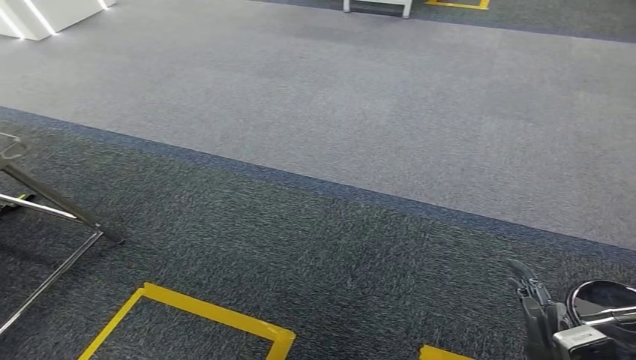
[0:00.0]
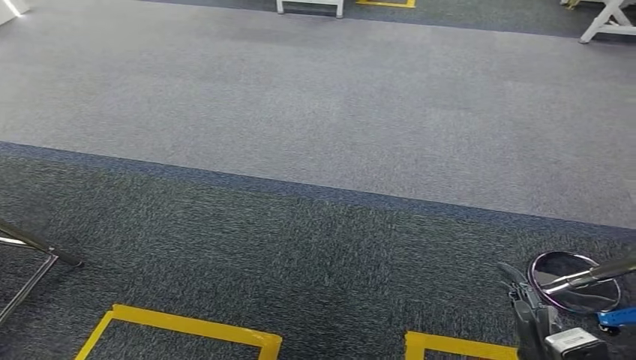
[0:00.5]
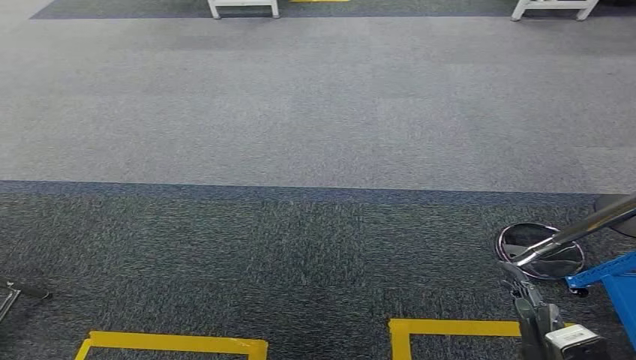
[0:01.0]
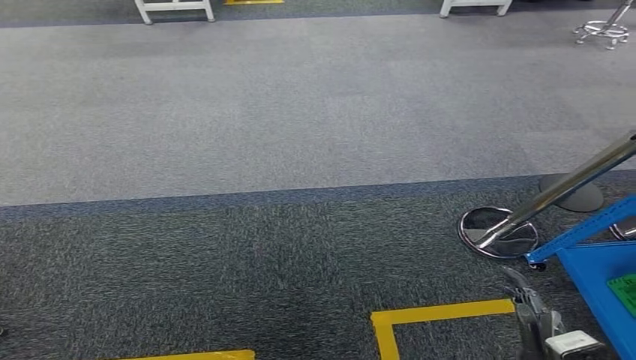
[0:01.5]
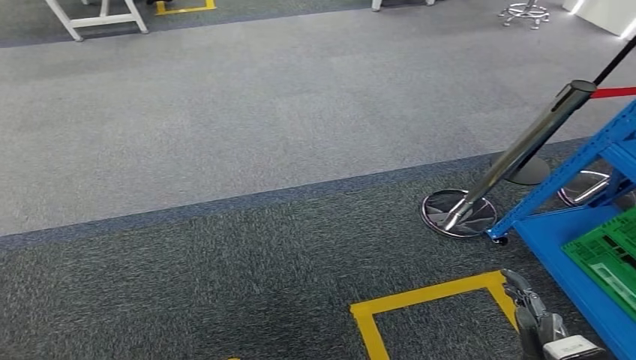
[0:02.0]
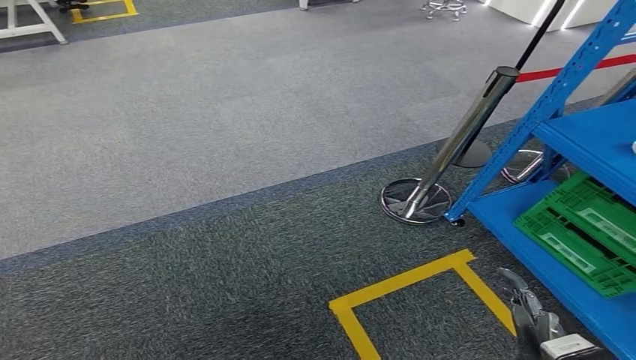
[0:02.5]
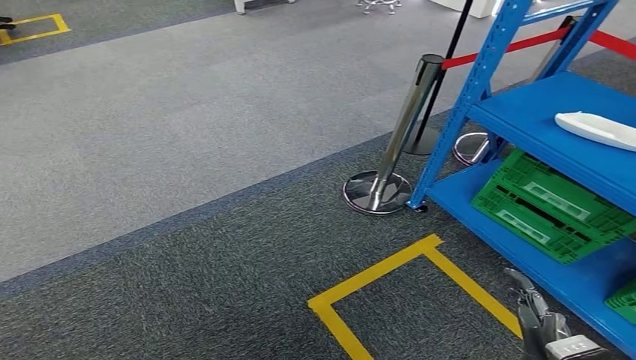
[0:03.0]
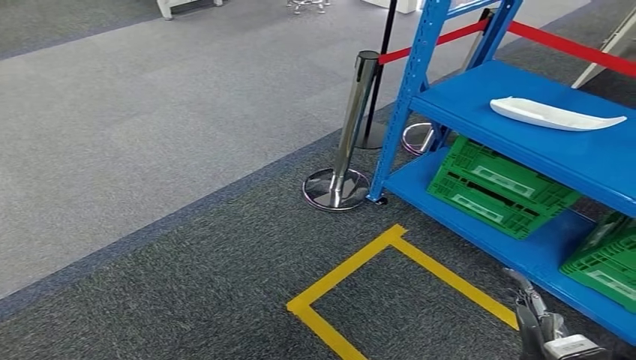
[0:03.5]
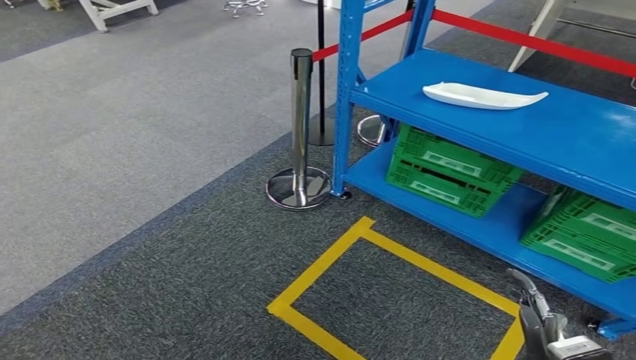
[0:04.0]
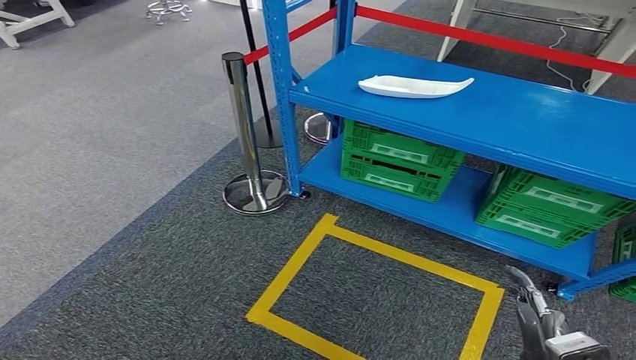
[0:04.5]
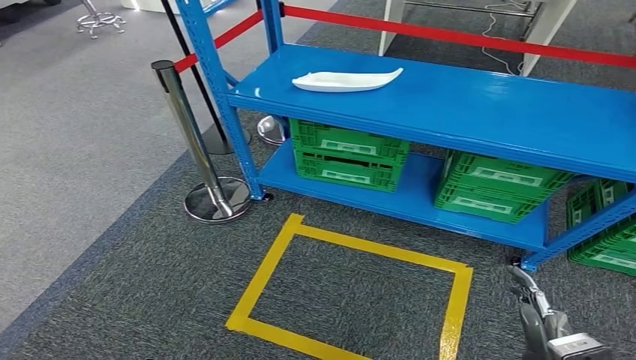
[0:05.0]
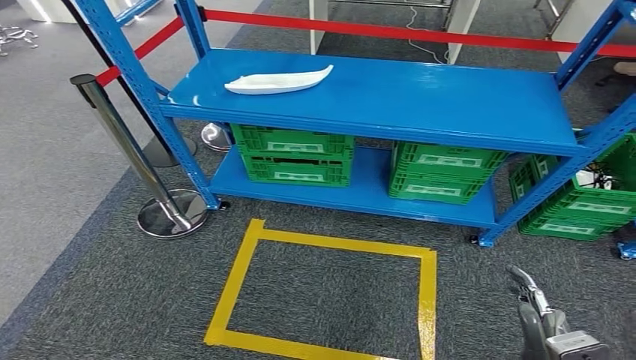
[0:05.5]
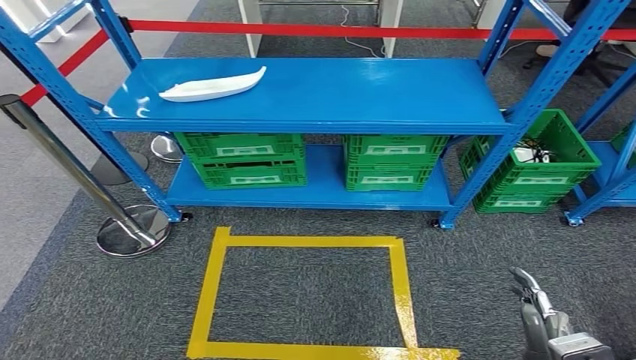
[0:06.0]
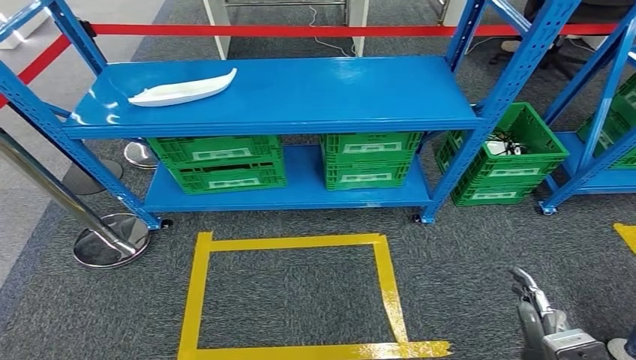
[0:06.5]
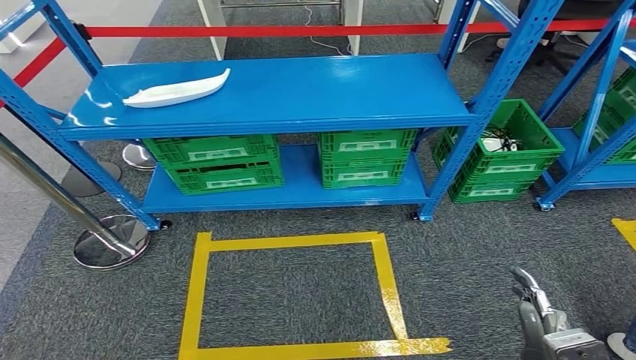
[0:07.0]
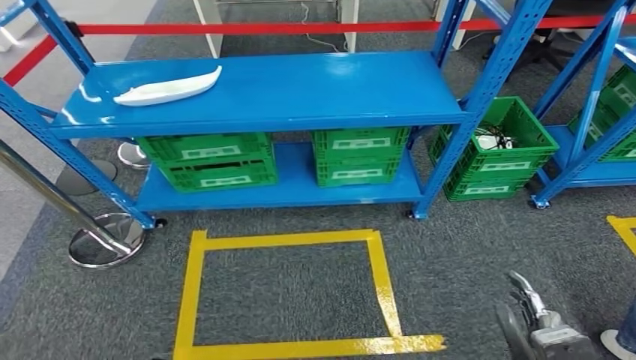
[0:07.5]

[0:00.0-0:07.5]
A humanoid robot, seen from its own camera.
Step, 0:00.0 to 0:07.5: Return to the initial position at the workbench.

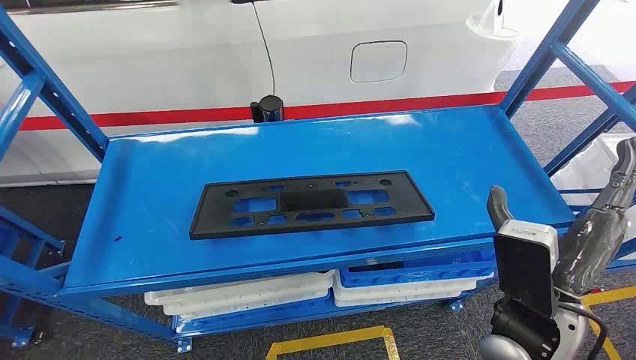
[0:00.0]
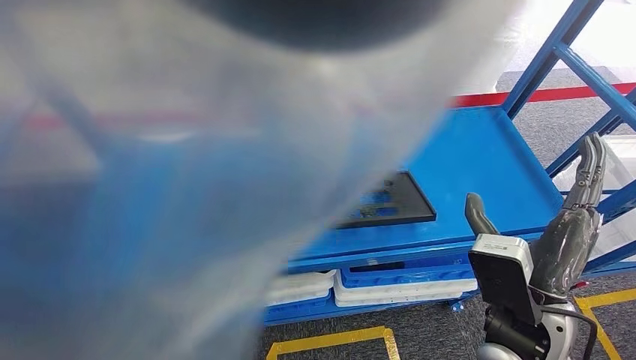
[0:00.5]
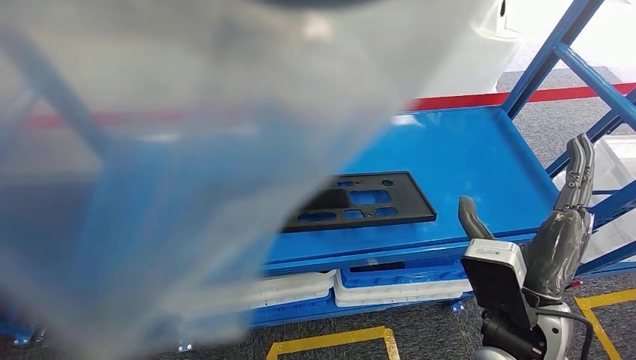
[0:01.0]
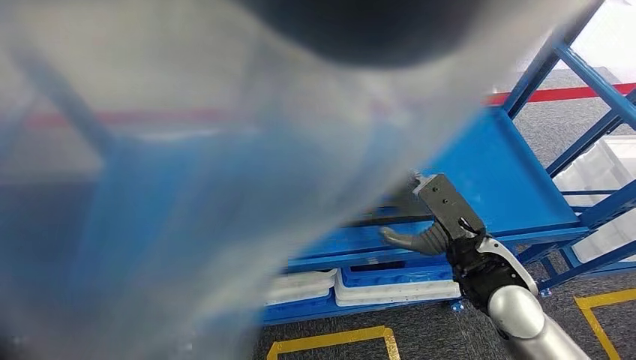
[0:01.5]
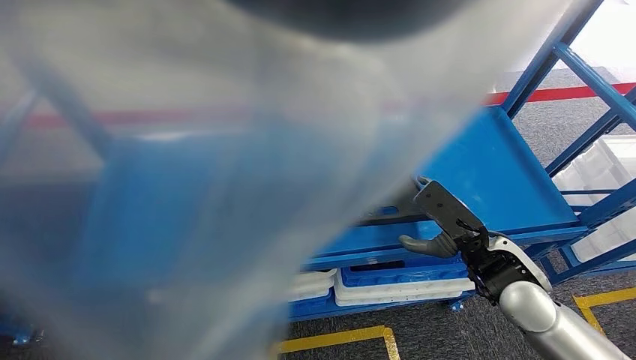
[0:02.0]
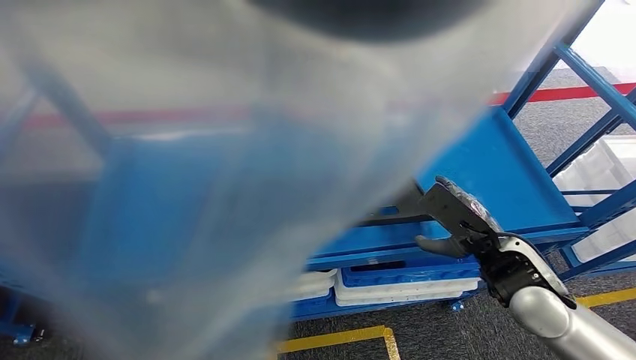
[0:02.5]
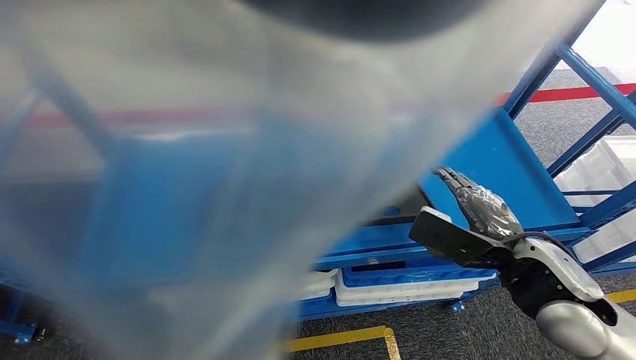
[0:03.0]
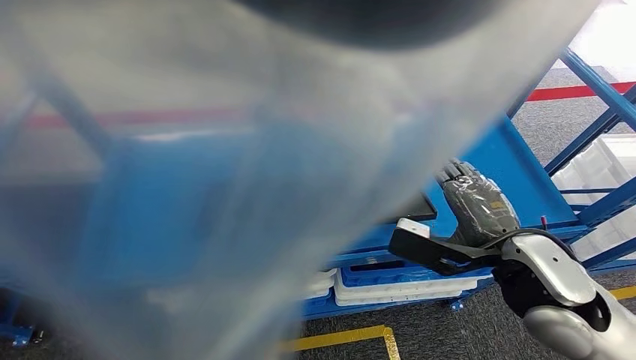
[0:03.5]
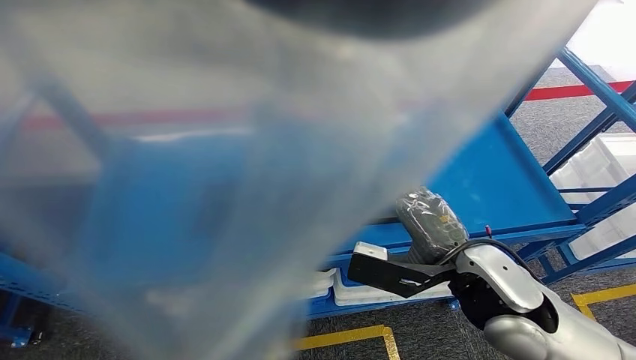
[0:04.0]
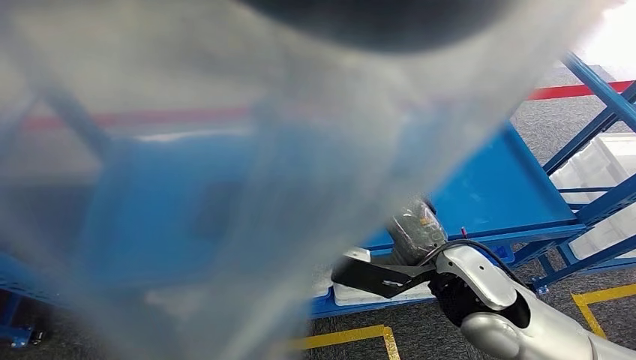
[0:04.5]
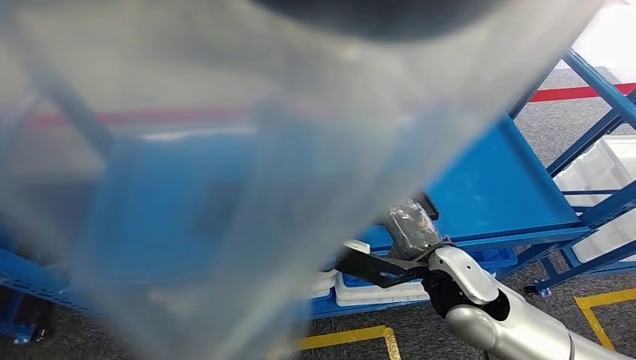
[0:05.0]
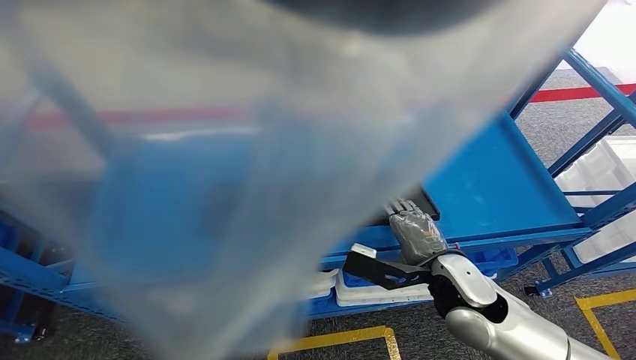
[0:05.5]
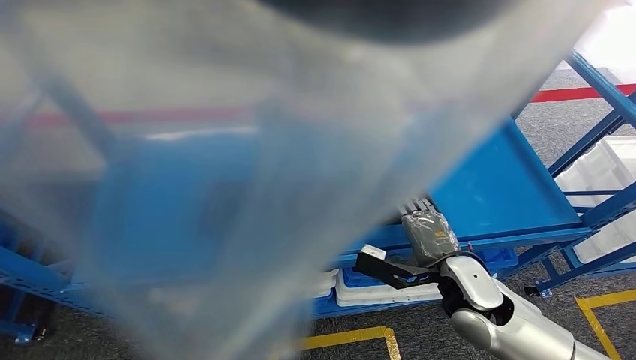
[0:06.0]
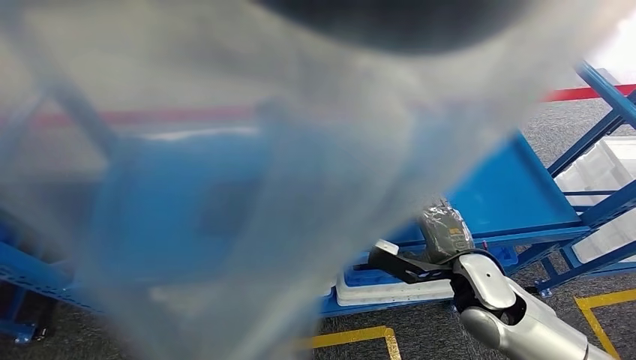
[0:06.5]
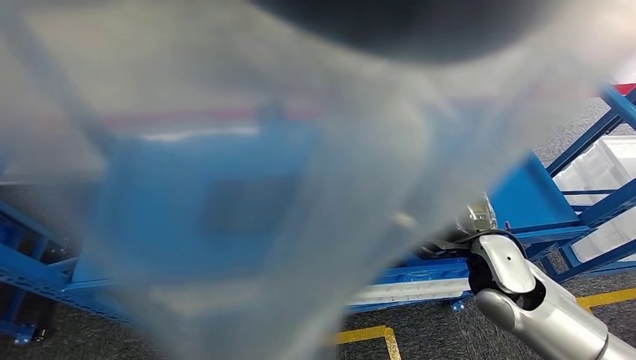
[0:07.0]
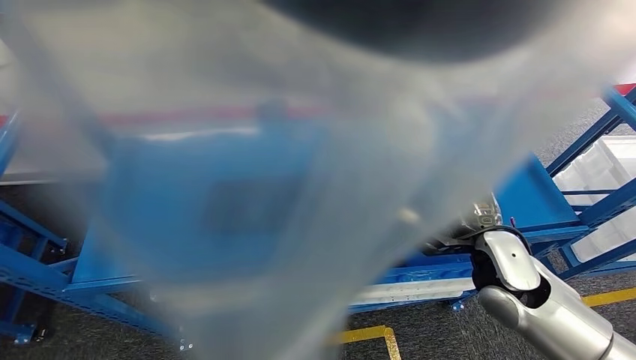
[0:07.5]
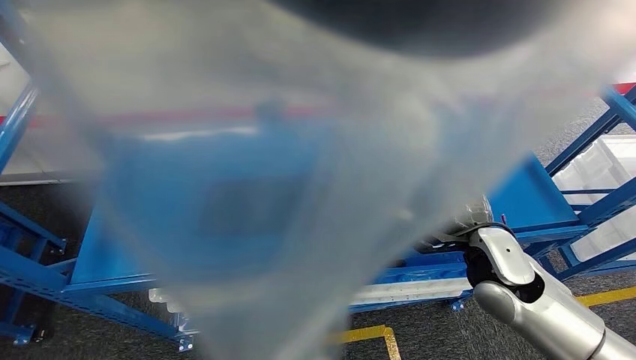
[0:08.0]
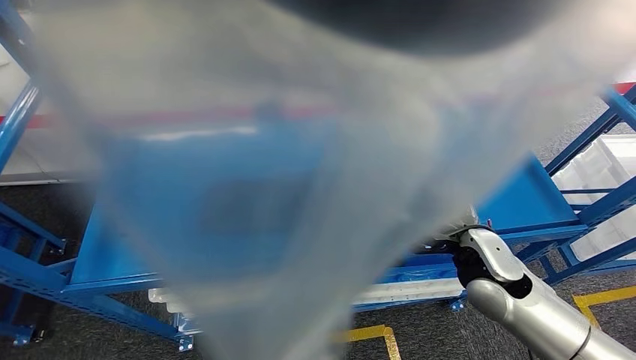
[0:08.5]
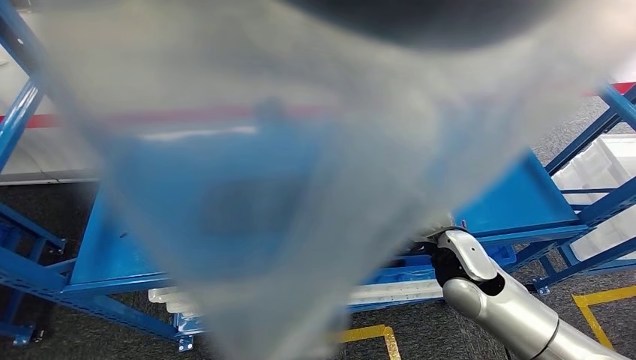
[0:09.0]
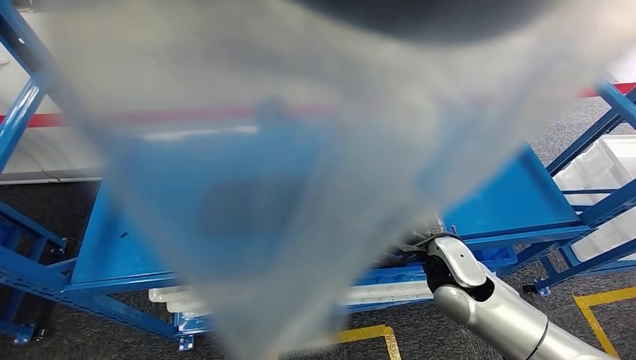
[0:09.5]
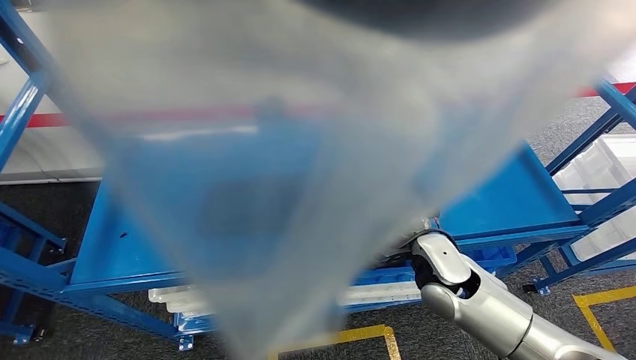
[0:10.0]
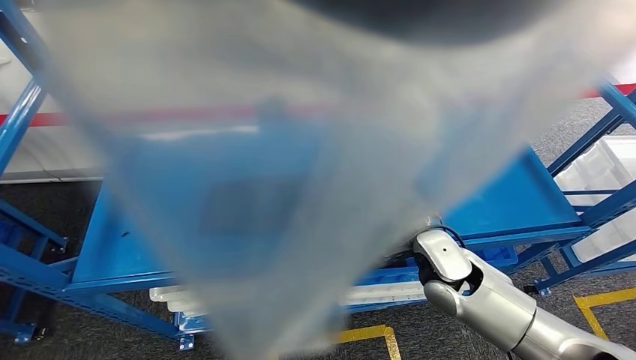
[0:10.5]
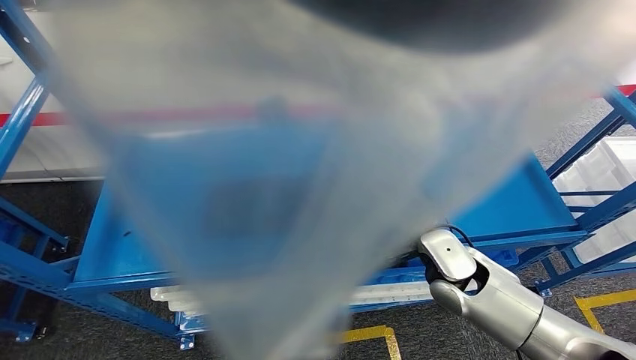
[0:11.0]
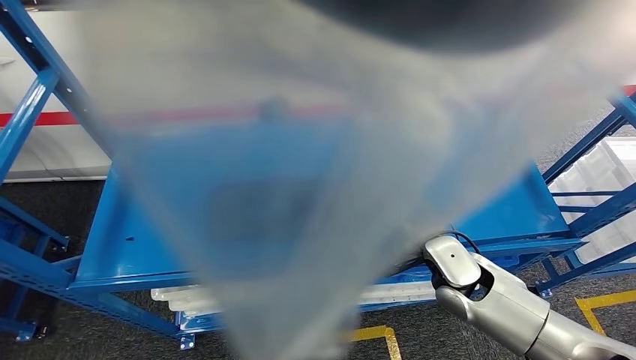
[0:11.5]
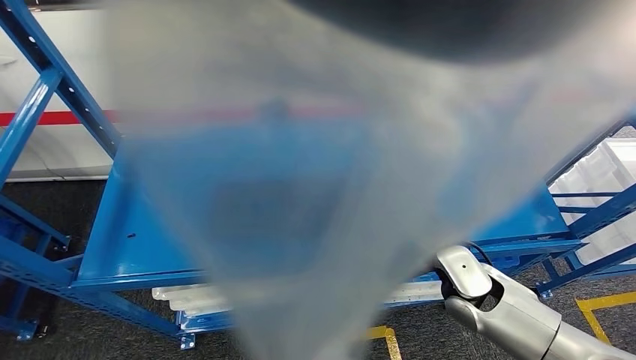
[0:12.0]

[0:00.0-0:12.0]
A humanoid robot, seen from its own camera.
0:02.0 to 0:04.0: The right hand is displaced to the left by approximately 5 cm.
0:04.0 to 0:06.0: The right hand heads downward, covering approximately 10 cm.
0:08.0 to 0:10.0: The right hand is displaced to the left by about 5 cm.

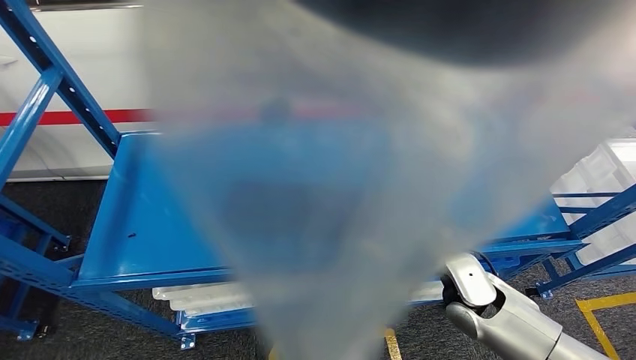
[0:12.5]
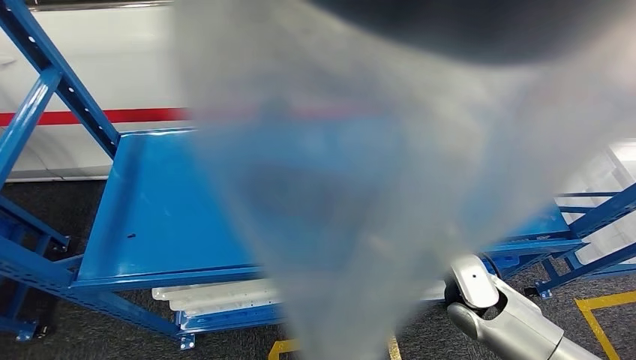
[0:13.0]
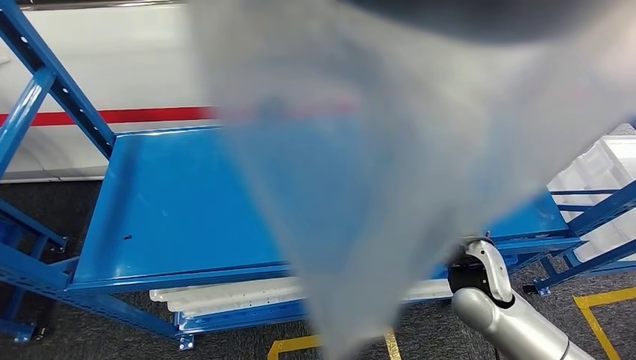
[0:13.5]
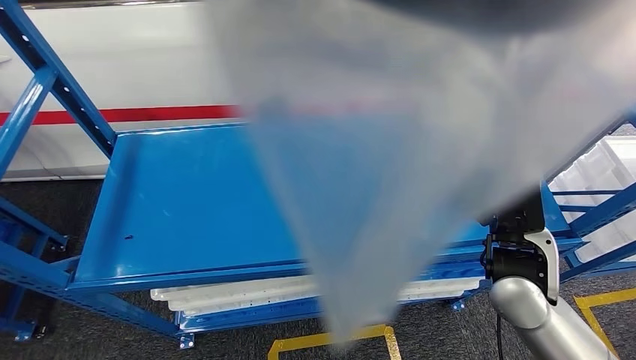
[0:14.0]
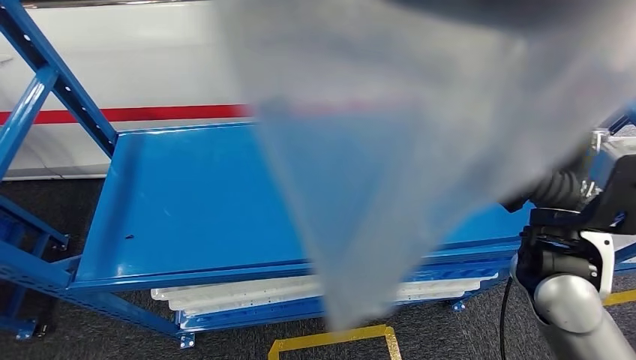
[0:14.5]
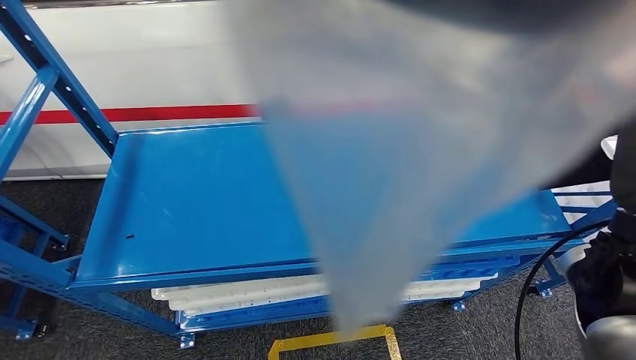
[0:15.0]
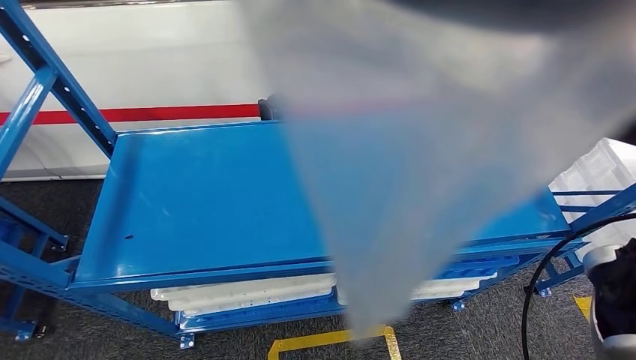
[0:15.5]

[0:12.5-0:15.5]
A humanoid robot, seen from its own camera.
Step, 0:12.5 to 0:15.0: Pick up the large parts from the shelf.
0:14.0 to 0:15.5: The right hand is displaced upward and backward by roughly 15 cm.
